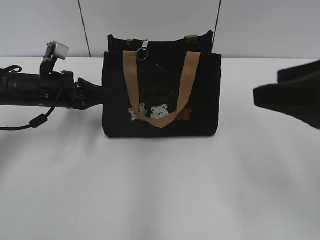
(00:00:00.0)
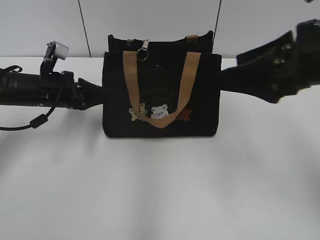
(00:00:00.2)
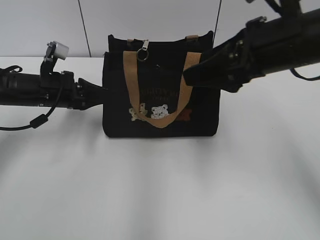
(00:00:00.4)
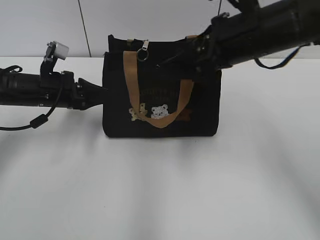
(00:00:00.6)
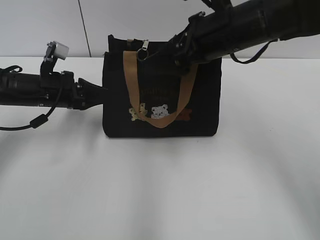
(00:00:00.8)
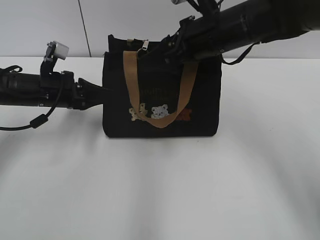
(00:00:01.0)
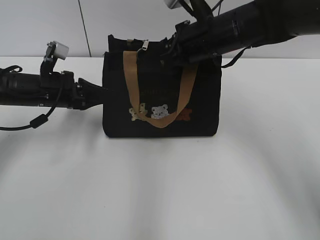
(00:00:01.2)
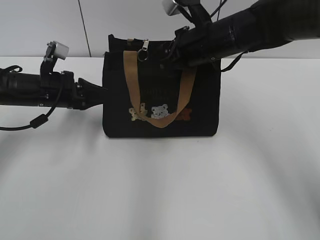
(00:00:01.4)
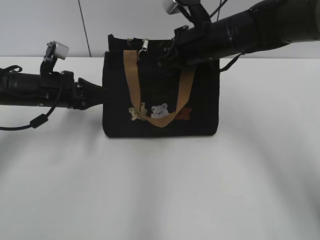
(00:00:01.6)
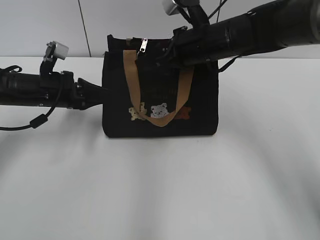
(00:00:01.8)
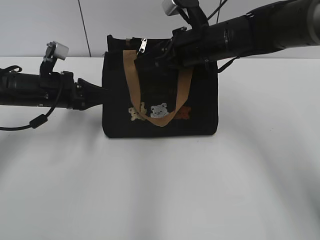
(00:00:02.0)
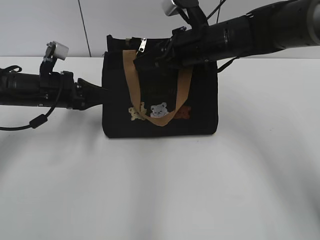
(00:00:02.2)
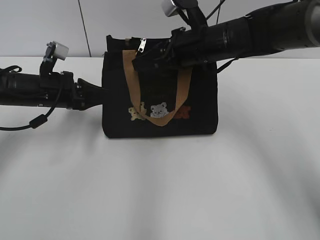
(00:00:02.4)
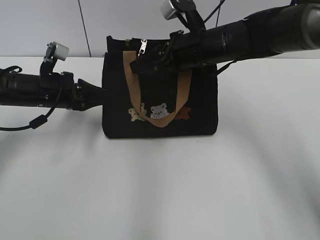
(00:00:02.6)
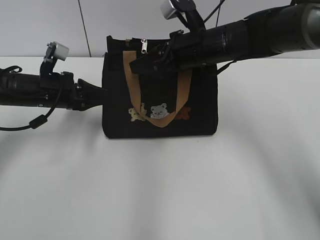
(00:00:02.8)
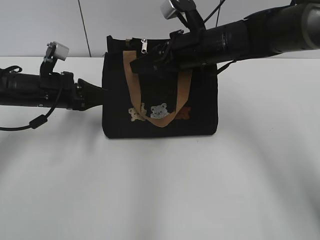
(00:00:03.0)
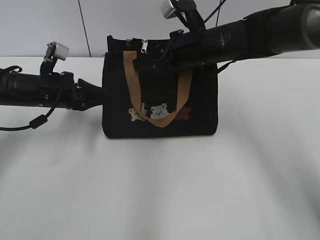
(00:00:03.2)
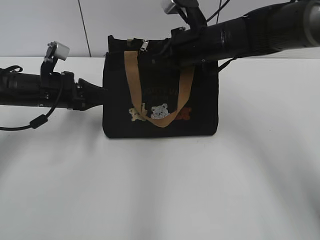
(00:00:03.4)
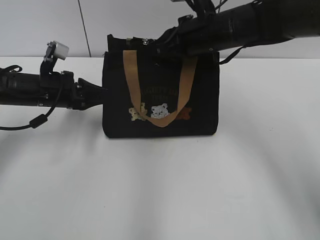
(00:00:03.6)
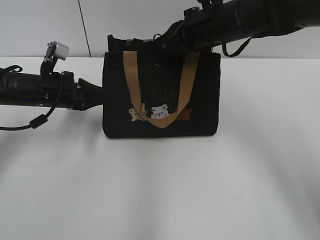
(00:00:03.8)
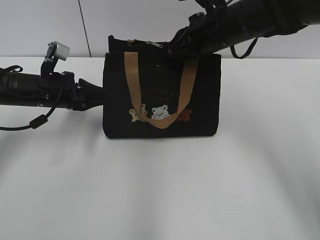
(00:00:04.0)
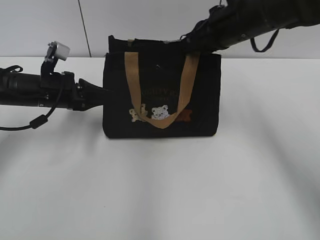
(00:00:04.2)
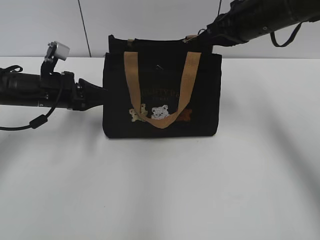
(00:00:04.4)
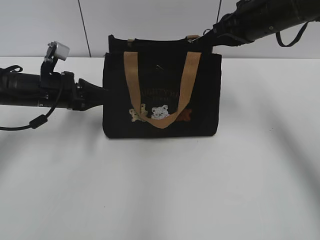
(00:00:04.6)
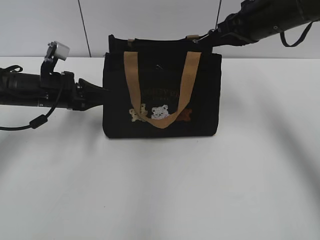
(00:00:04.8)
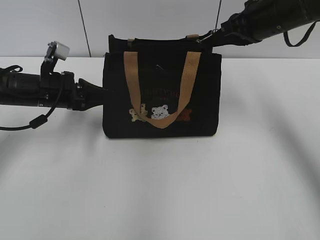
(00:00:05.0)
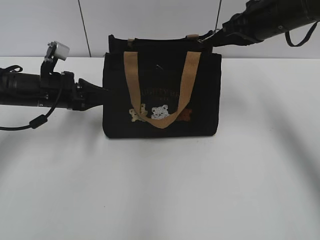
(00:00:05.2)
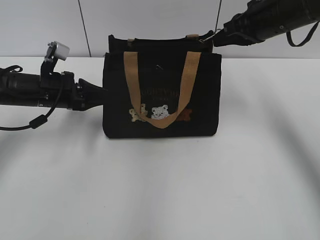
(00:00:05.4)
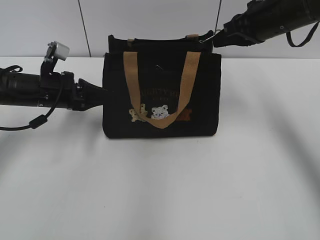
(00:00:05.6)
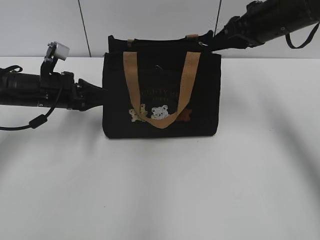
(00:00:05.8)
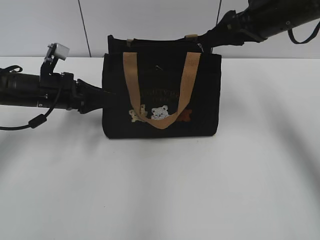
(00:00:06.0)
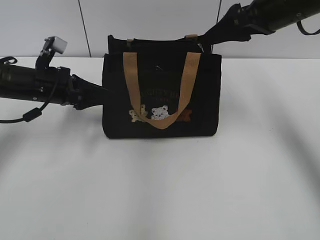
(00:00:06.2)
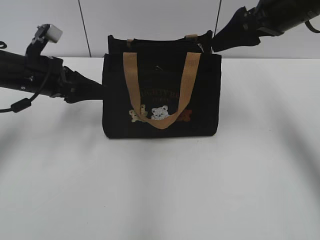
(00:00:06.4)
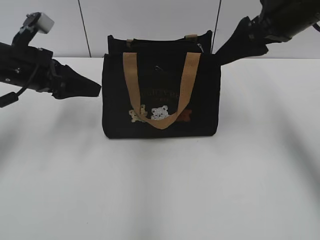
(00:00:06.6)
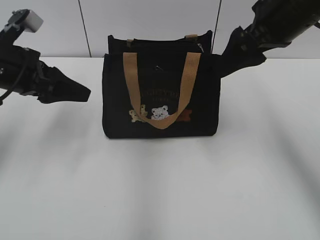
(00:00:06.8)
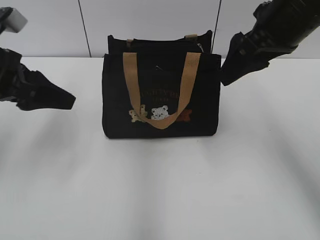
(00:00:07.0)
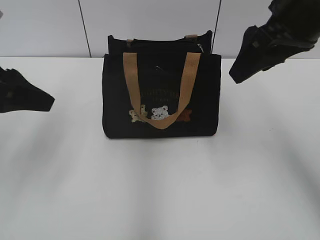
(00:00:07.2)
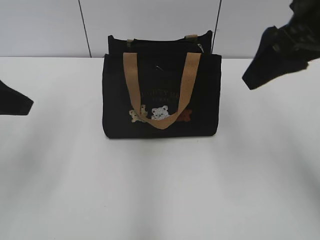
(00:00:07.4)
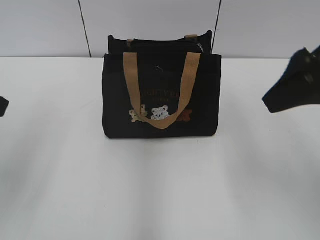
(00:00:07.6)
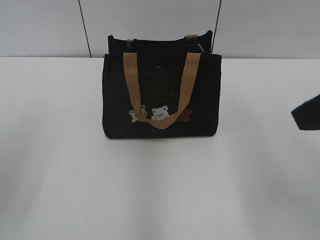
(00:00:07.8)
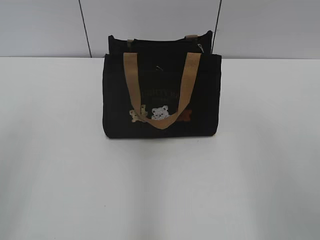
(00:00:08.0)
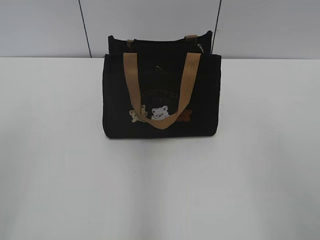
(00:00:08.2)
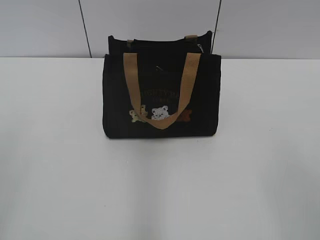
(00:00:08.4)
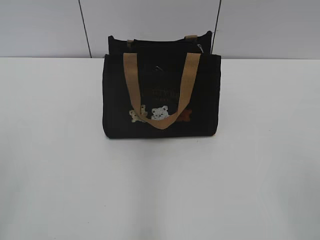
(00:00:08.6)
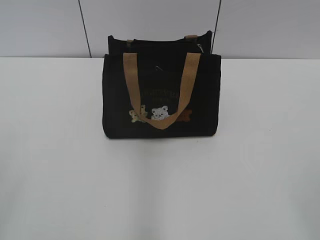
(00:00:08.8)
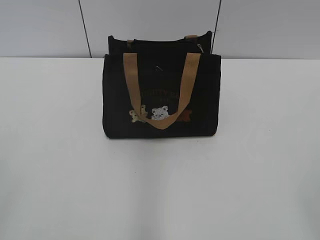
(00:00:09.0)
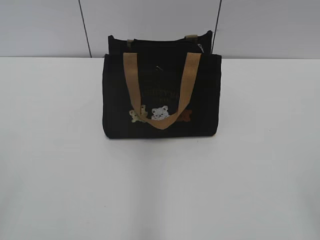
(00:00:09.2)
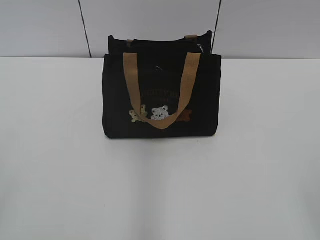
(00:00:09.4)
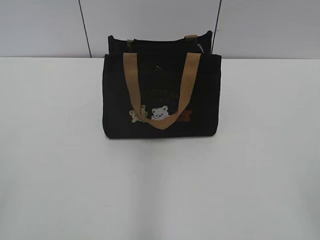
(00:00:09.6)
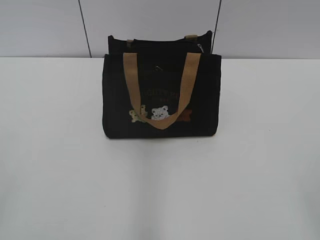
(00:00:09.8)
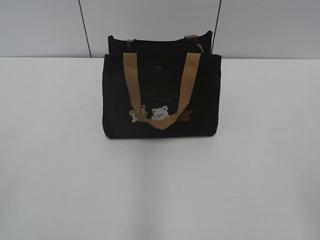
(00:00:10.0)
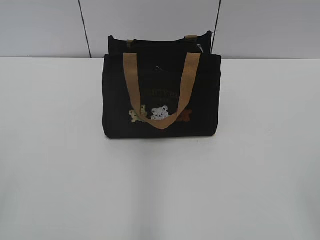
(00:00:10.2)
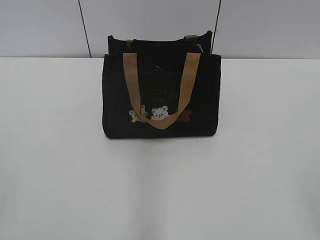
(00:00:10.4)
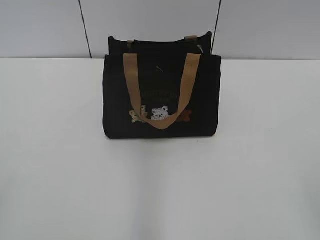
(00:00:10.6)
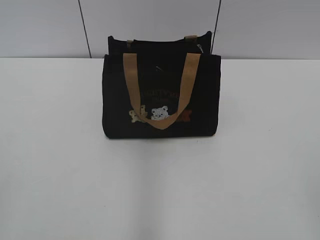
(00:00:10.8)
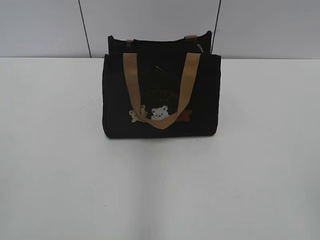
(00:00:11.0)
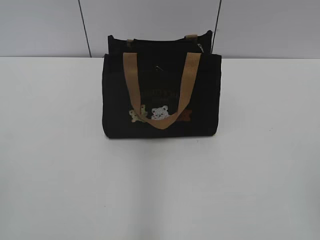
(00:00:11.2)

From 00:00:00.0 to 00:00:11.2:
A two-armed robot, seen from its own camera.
Step, from 00:00:00.0 to 00:00:06.2: Pull open the zipper with your right hand.
Step, from 00:00:06.4 to 00:00:06.6: Hold the bag with your left hand.
From 00:00:00.0 to 00:00:01.6: The right gripper shifts roughly 30 cm forward and to the left.
From 00:00:01.6 to 00:00:03.2: The grippers stay close to where they were, moving slightly.
From 00:00:03.2 to 00:00:04.8: The right gripper moves to the right and upward, approximately 10 cm, and closes up.
From 00:00:04.8 to 00:00:06.4: The right gripper opens up. Meanwhile the left gripper opens.
From 00:00:06.4 to 00:00:08.0: The left gripper moves backward and upward, some 25 cm; the right gripper shifts about 20 cm backward.
From 00:00:08.0 to 00:00:09.6: The right gripper shifts roughly 20 cm backward and to the right.
